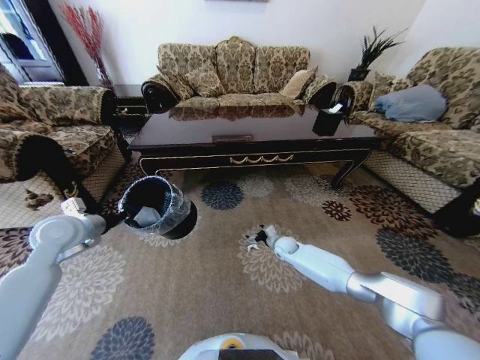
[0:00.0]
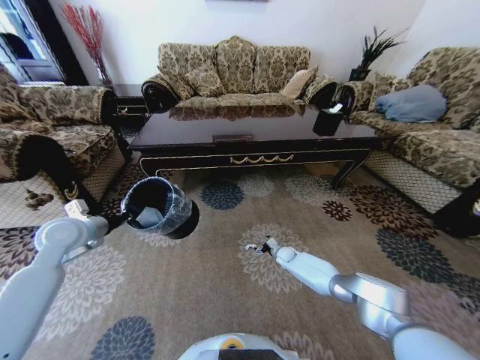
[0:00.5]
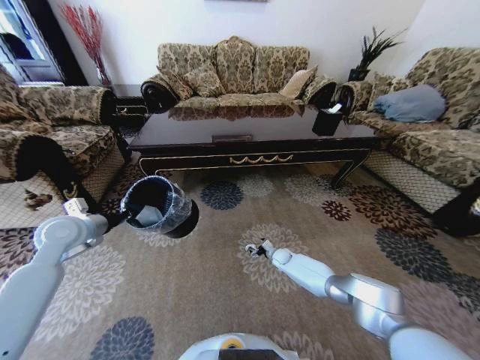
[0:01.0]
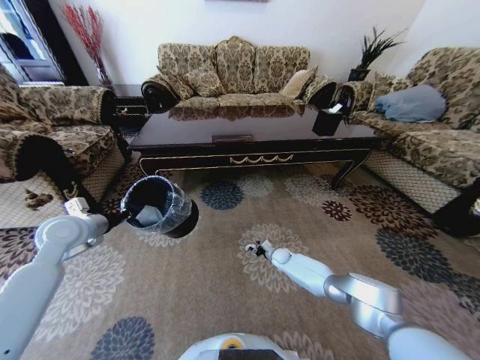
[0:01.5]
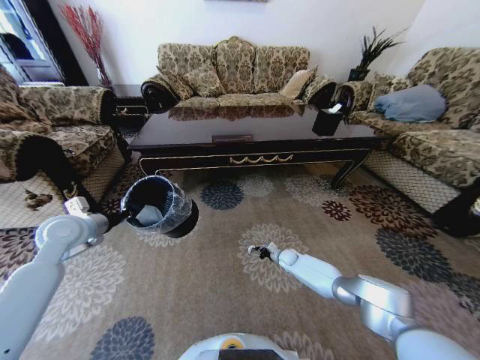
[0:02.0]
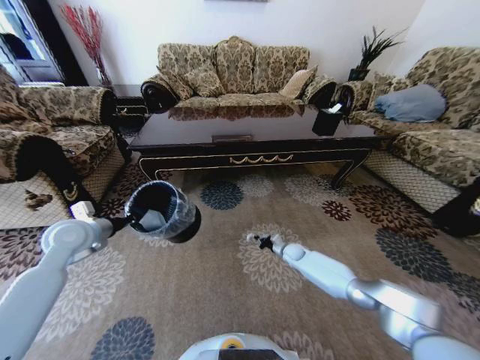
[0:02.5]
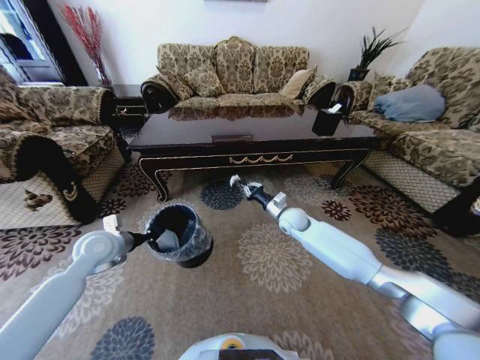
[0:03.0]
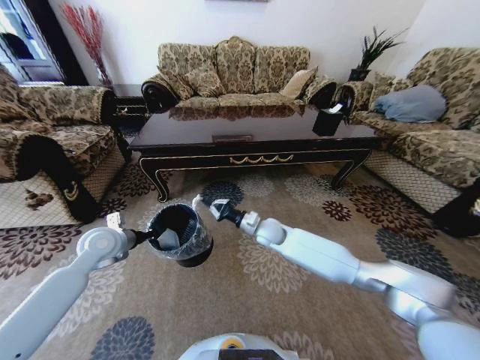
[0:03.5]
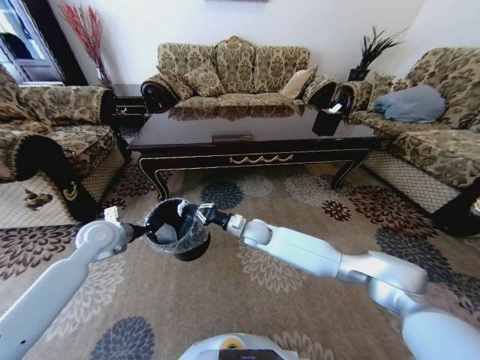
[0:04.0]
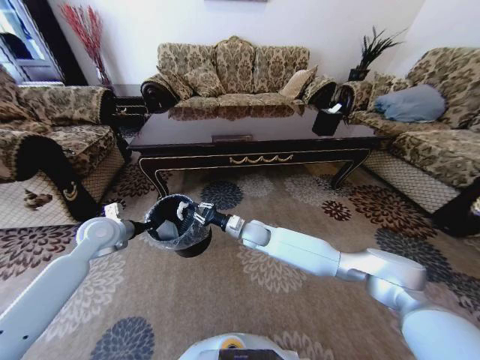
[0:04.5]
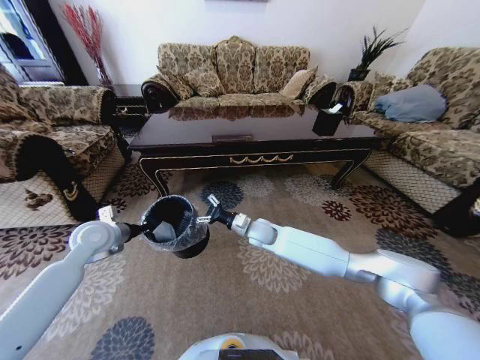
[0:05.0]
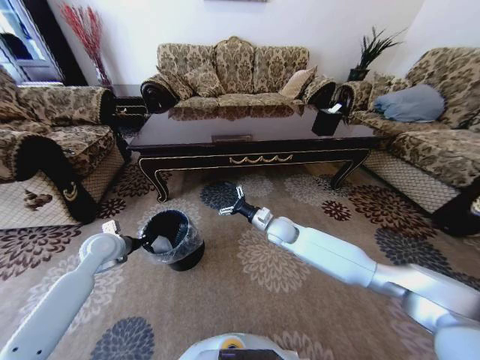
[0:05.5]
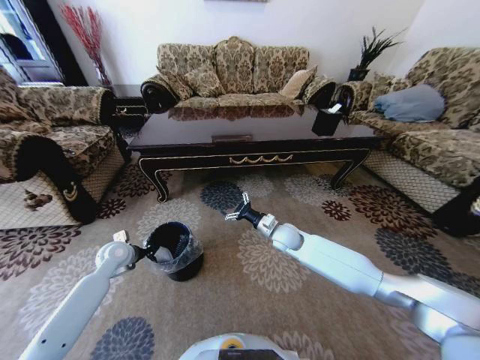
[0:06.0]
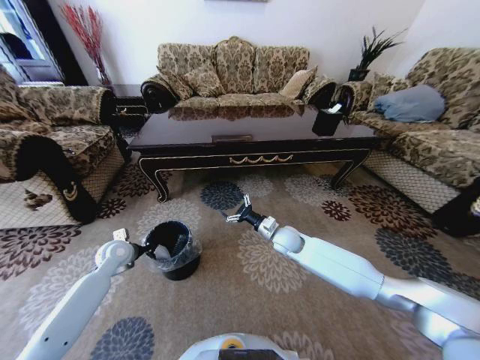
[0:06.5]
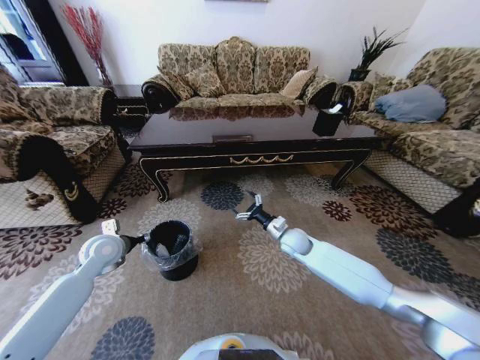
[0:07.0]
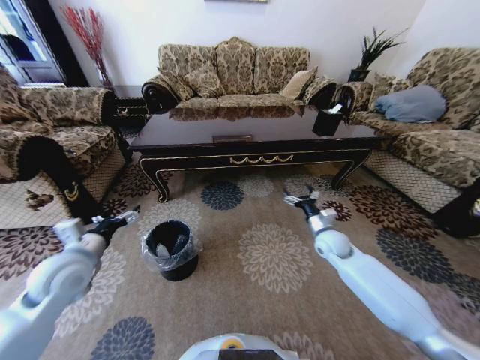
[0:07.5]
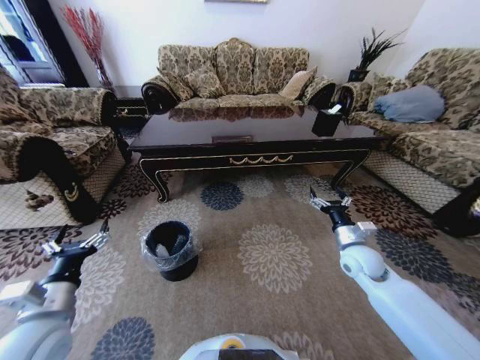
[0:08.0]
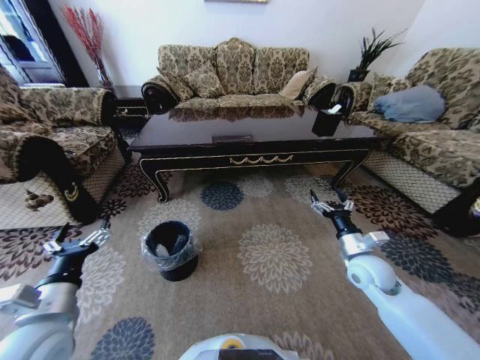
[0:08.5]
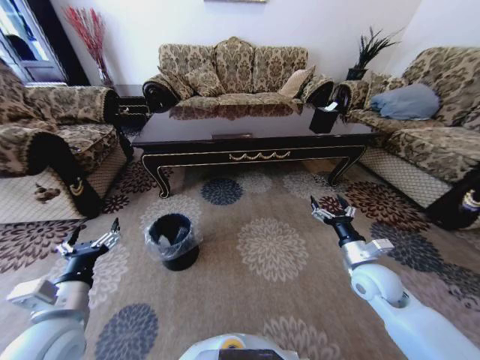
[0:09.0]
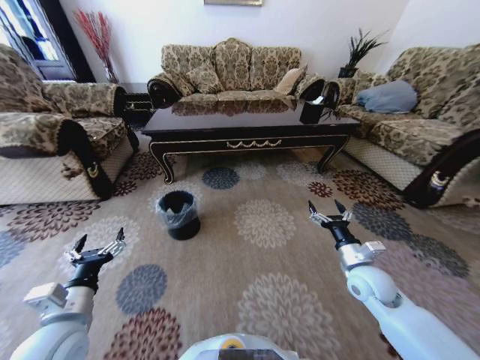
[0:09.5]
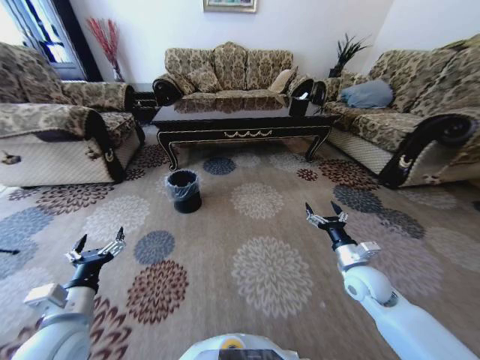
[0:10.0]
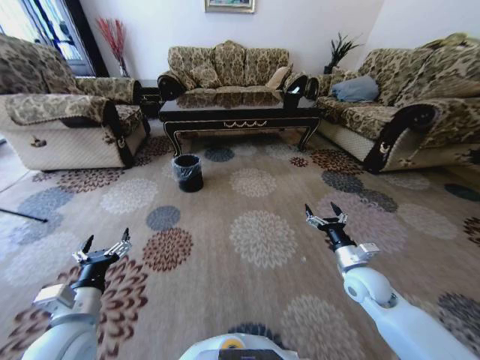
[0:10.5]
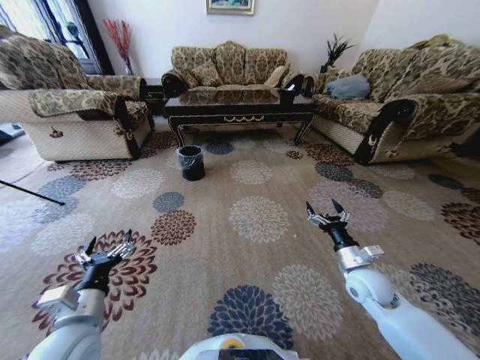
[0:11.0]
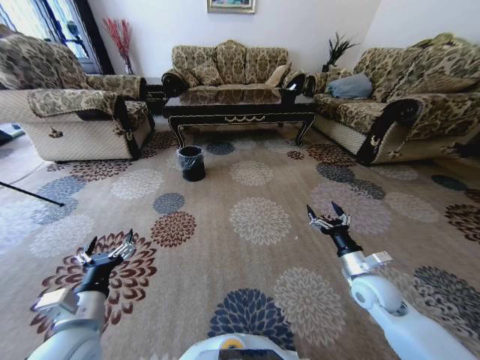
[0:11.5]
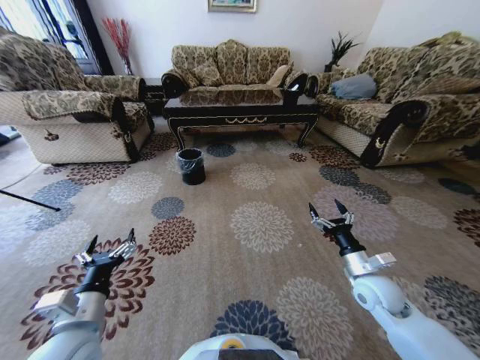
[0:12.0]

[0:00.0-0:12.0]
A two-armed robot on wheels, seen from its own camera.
Task of the whole recording: Move to the front of the table and pick up the trash from the floor, then place it into the trash bin.
0:00.0 to 0:02.0: The right gripper travels downward by approximately 10 cm, and closes up.
0:02.0 to 0:04.0: The left gripper moves about 5 cm, while the right gripper moves upward and to the left, some 30 cm.
0:04.0 to 0:06.0: The left gripper travels downward by roughly 10 cm, while the right gripper travels to the right by about 10 cm, and opens its fingers.
0:06.0 to 0:08.0: The right gripper goes roughly 20 cm to the right and backward, while the left gripper is displaced backward and upward by some 25 cm, and opens its fingers.
0:08.0 to 0:10.0: The right gripper is displaced backward by roughly 5 cm.

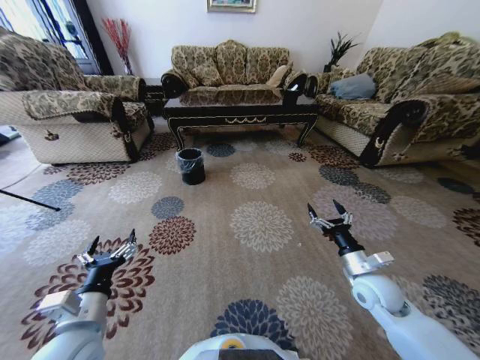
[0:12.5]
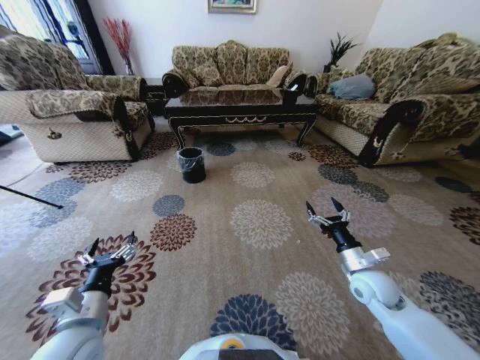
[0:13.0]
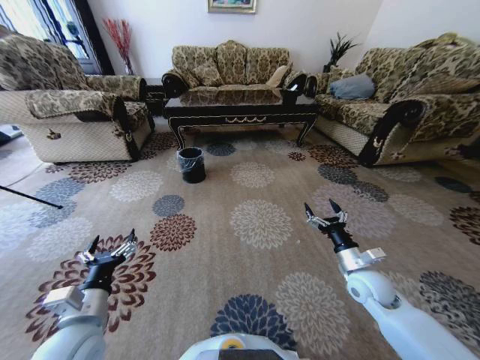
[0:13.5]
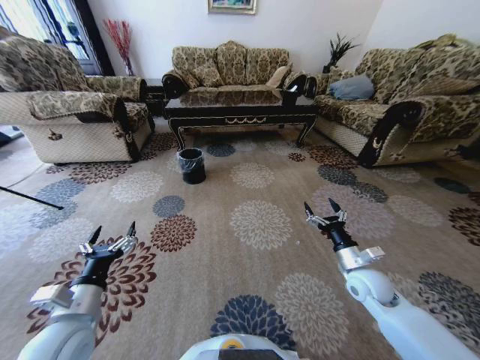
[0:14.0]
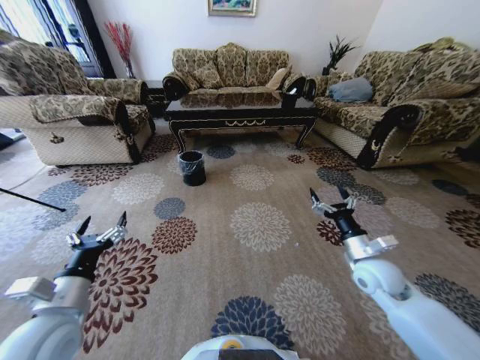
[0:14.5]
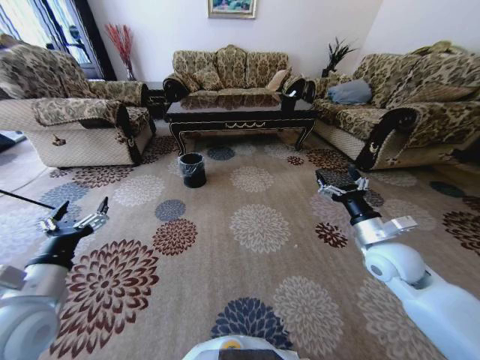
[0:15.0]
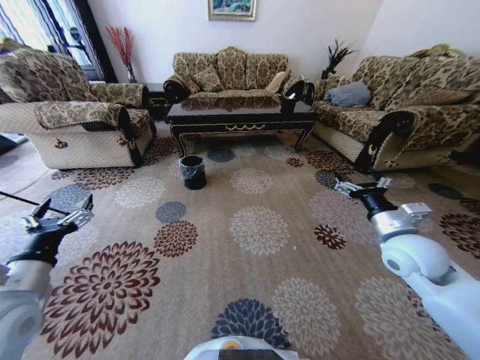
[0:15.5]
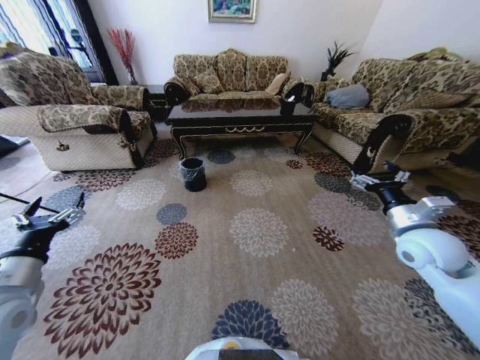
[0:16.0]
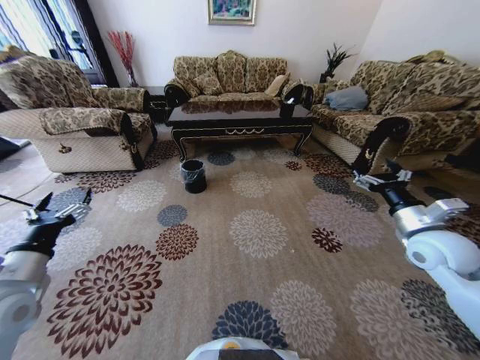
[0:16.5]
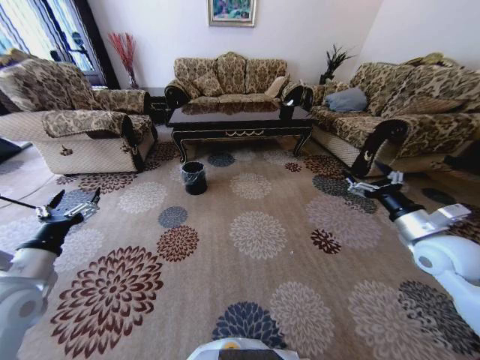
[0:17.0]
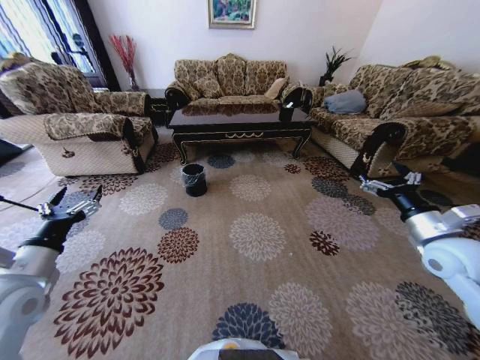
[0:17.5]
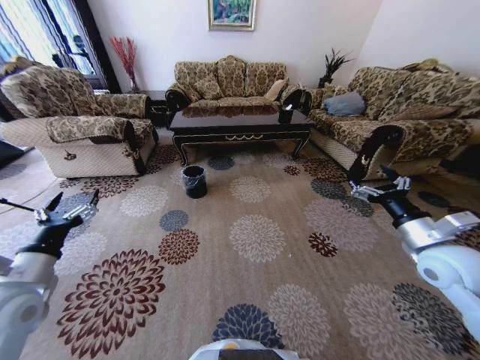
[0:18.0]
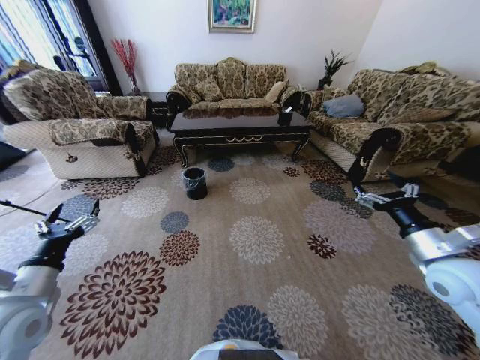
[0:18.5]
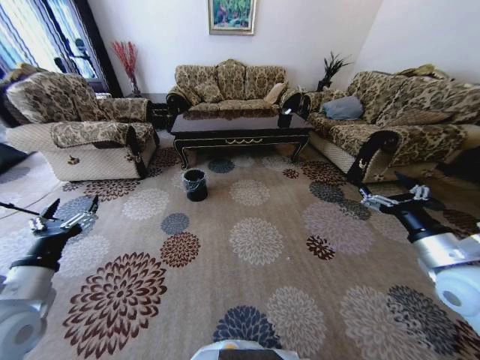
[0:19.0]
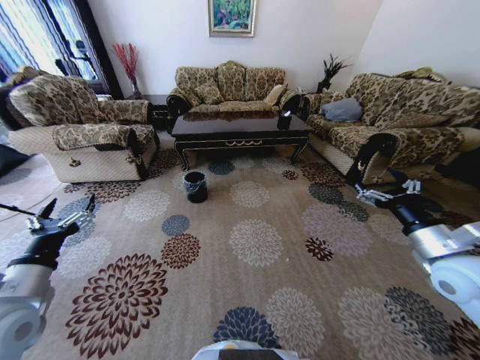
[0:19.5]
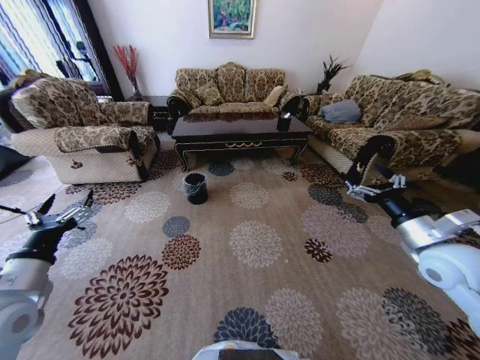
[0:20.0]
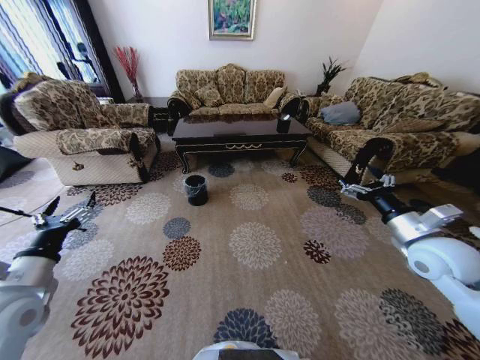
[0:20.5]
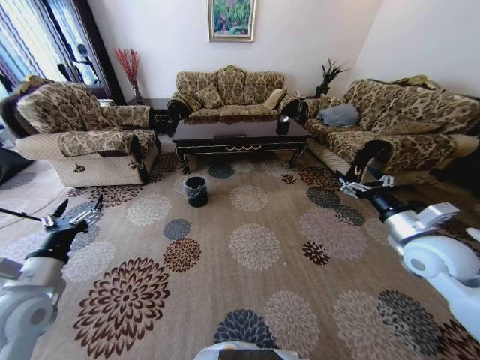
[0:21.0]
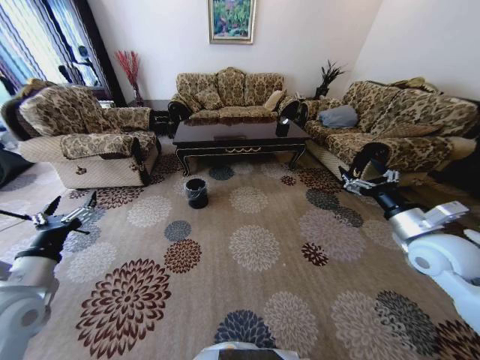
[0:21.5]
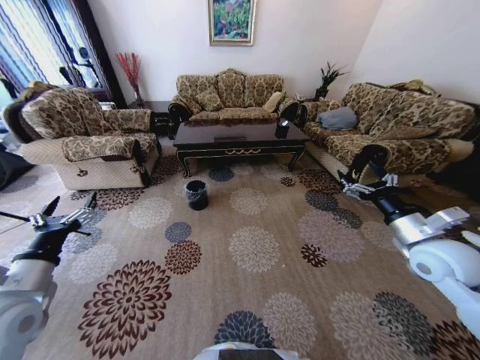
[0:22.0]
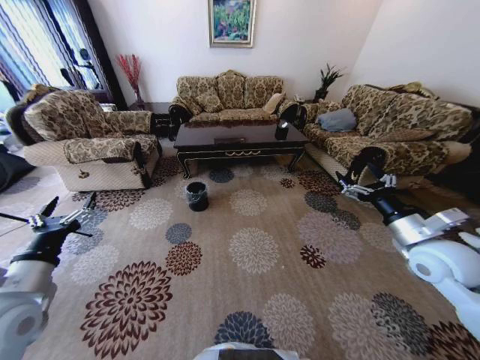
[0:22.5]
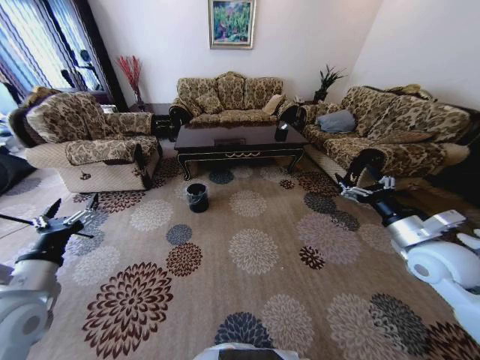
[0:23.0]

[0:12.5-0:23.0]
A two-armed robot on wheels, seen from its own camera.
Task of the whole recording: Move to the front of the table and pick up the trash from the floor, then place it into the trash bin.
0:12.5 to 0:14.5: The left gripper moves about 5 cm.
0:14.5 to 0:16.5: The left gripper goes about 10 cm to the left. The right gripper moves upward and to the right, about 15 cm.
0:16.5 to 0:19.0: The right gripper moves backward, some 10 cm.
0:19.0 to 0:21.0: The right gripper moves forward, roughly 5 cm.

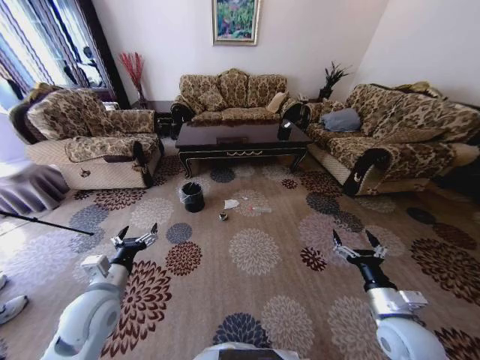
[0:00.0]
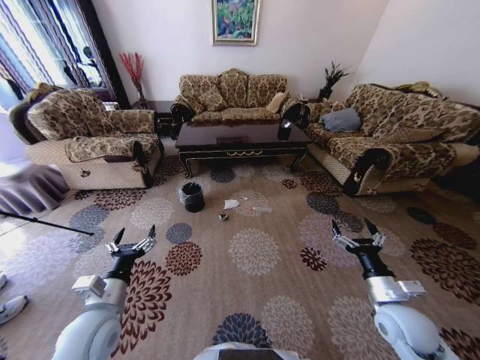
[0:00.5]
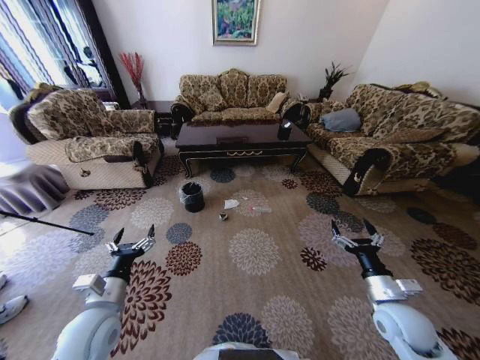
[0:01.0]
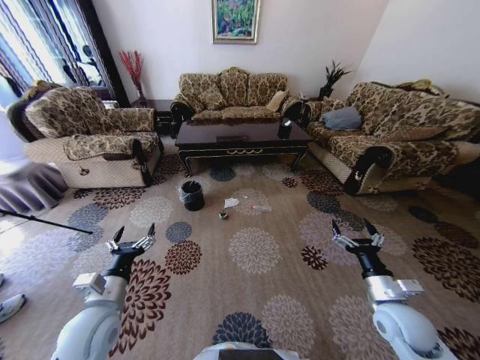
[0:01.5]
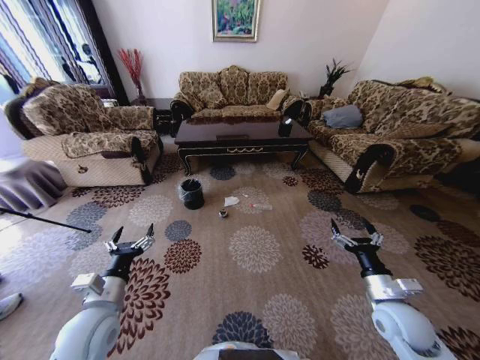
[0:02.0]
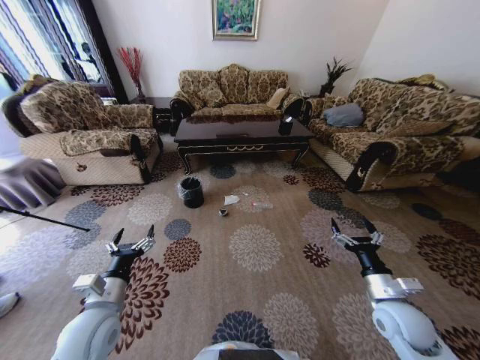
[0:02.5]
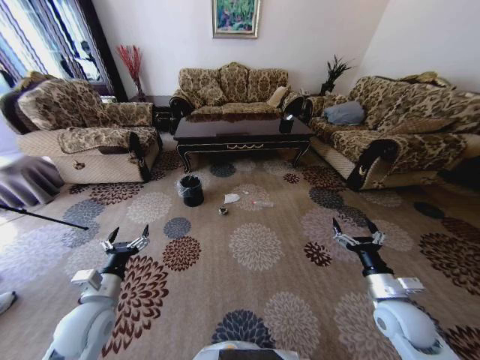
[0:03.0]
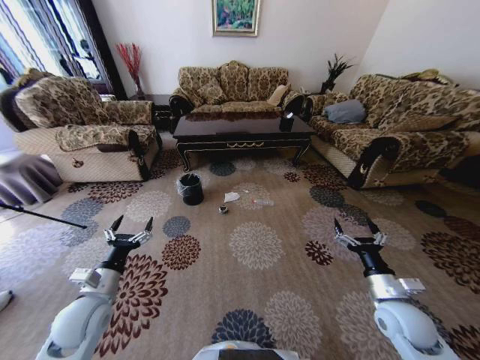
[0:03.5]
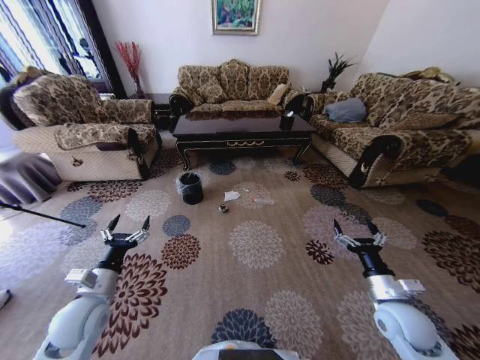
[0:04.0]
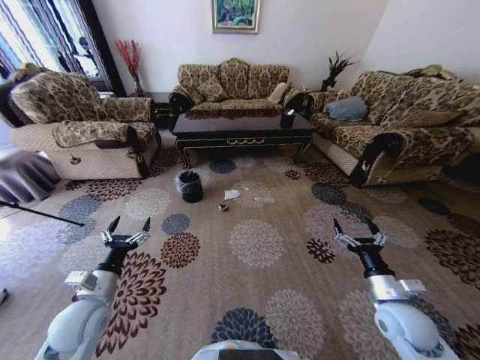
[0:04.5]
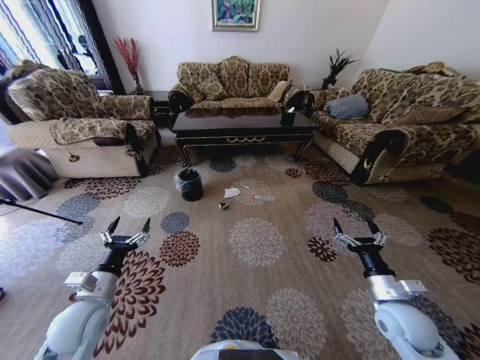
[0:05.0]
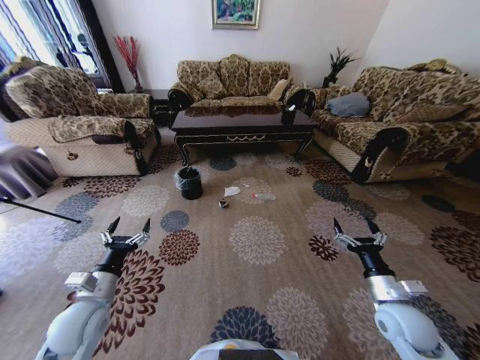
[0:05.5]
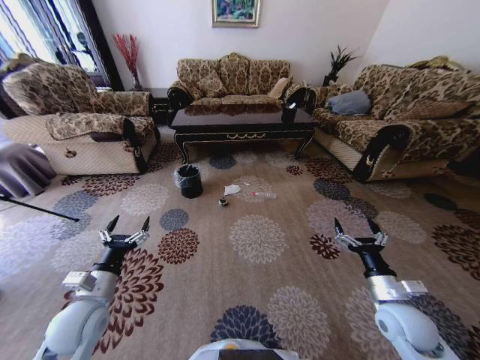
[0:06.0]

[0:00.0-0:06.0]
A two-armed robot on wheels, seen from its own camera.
Task of the whole recording: Move to the front of the table and pick up the trash from the floor, then place it into the trash bin.
0:02.0 to 0:04.0: The left gripper changes place by some 5 cm.